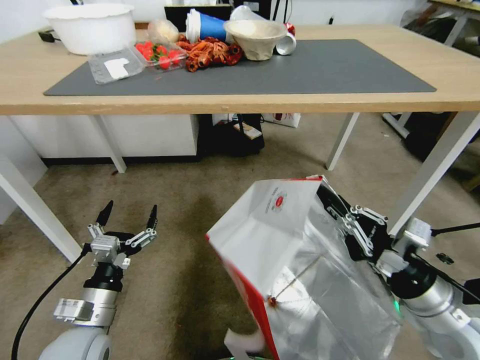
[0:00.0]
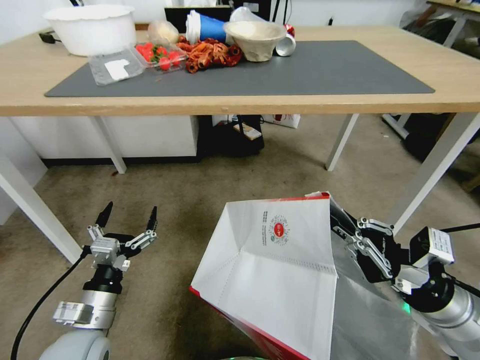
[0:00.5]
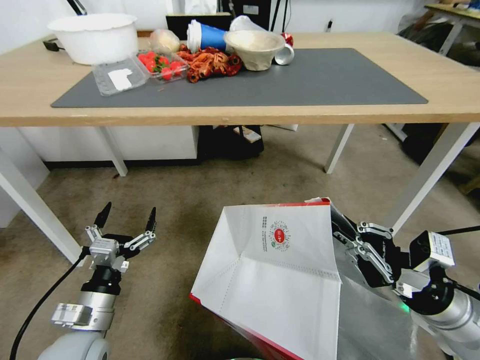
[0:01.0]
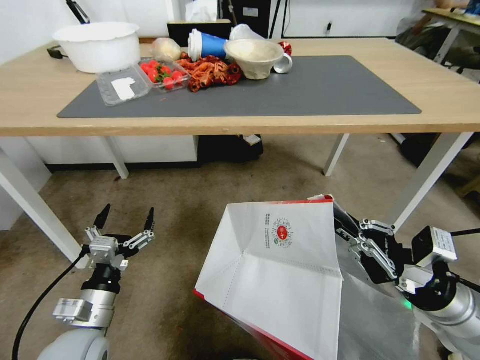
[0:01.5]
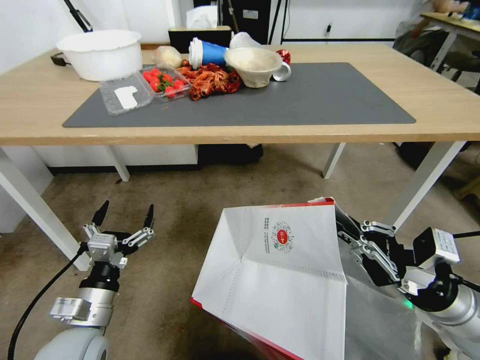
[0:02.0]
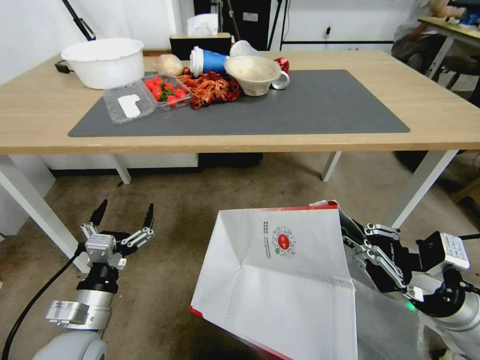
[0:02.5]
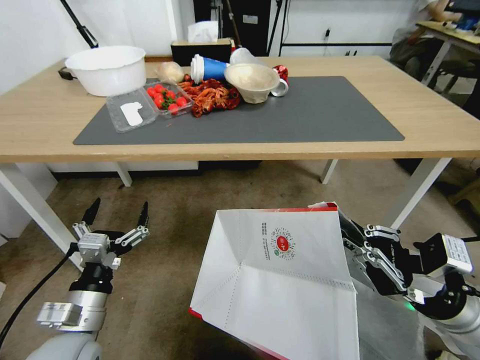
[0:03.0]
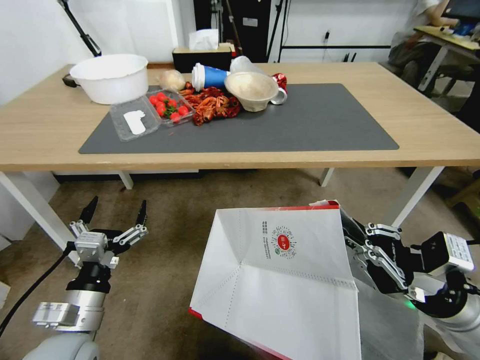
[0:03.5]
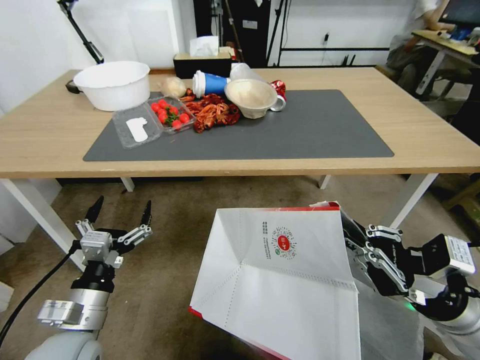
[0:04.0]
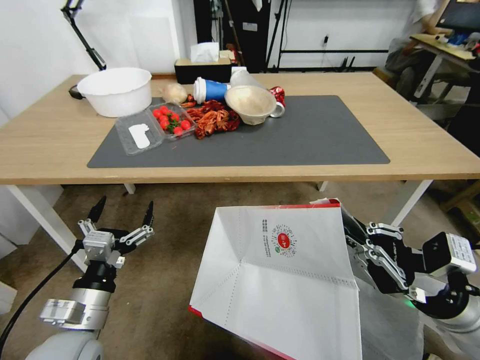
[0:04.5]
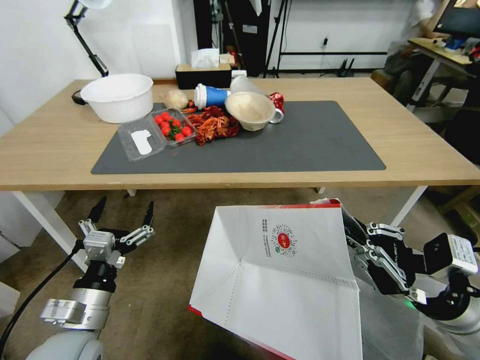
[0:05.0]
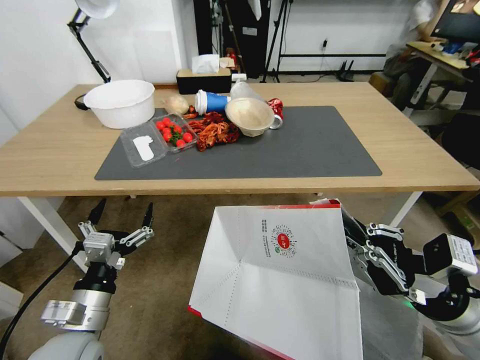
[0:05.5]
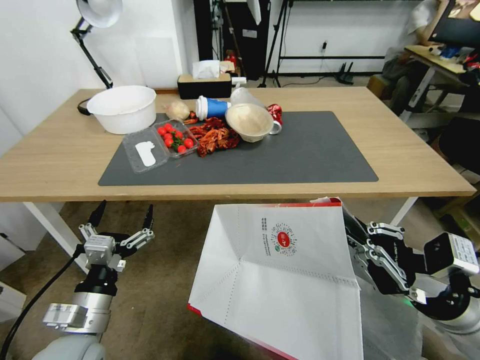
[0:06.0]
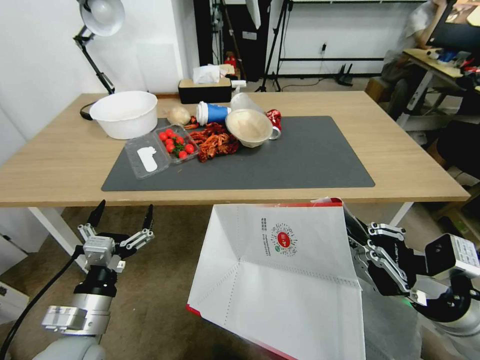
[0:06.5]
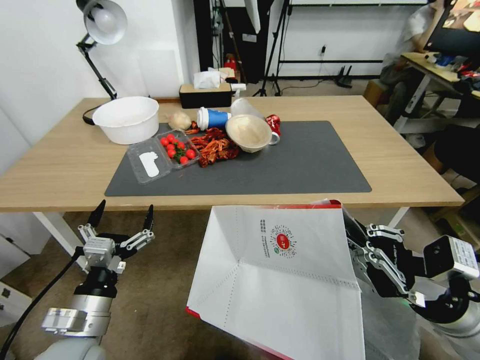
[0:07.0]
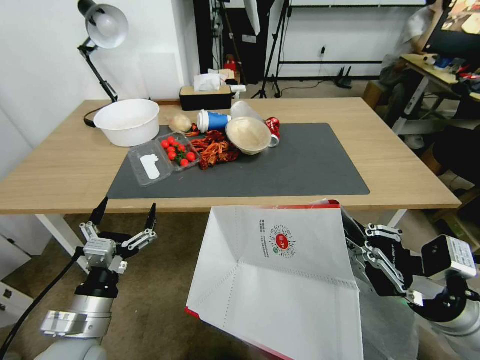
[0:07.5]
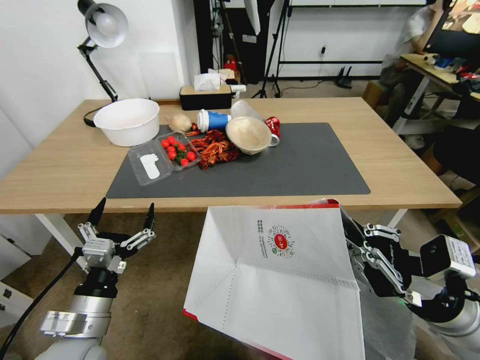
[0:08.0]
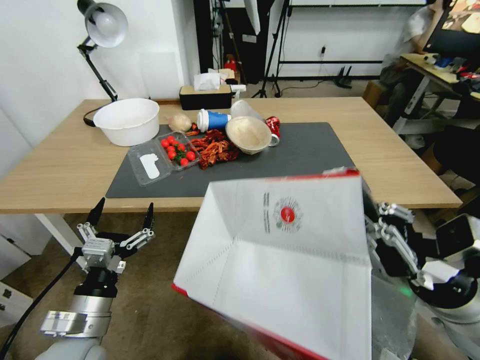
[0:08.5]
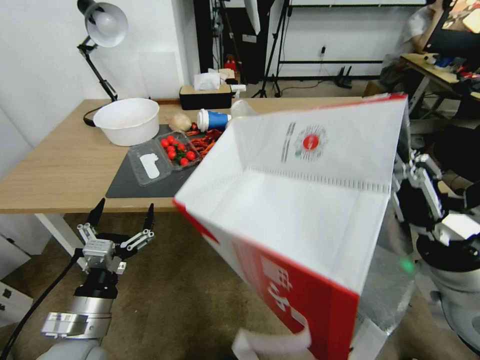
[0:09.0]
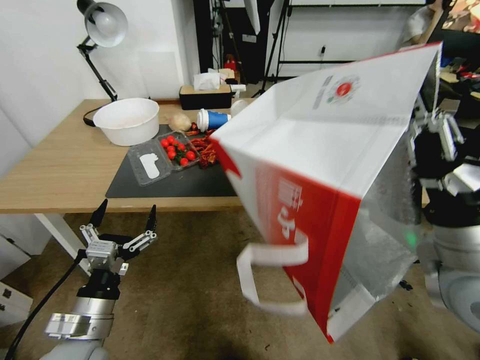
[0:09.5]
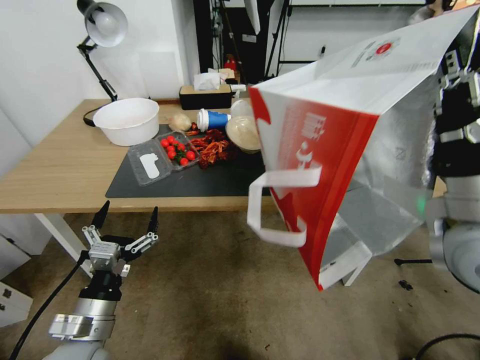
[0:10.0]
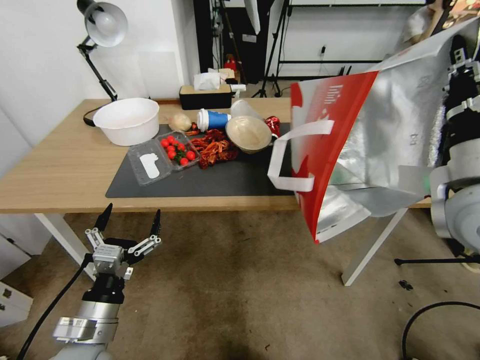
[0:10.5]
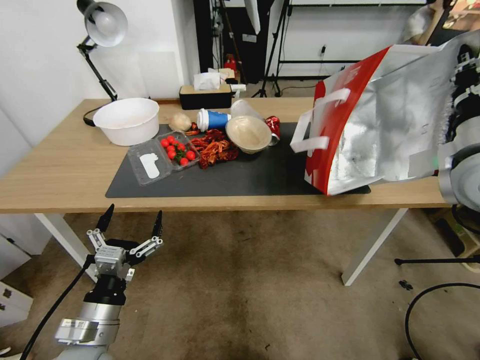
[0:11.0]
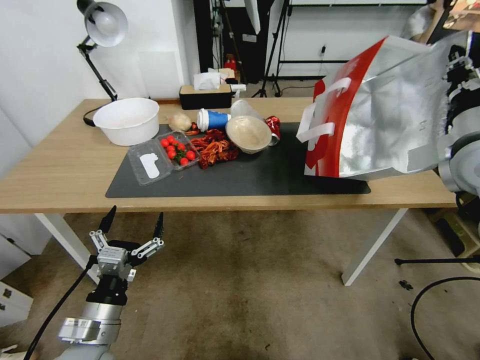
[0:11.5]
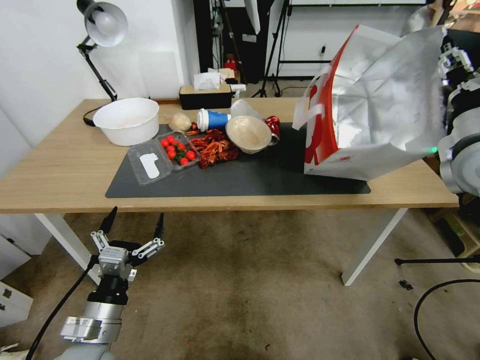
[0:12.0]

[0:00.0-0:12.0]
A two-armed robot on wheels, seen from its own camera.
Task of the whole recording: Pick up the food delivery bag from the floor and place it on the table.
0:08.0 to 0:10.0: The right gripper moves upward and forward, about 15 cm.
0:10.0 to 0:12.0: The right gripper shifts approximately 15 cm forward and to the right, and opens its fingers.

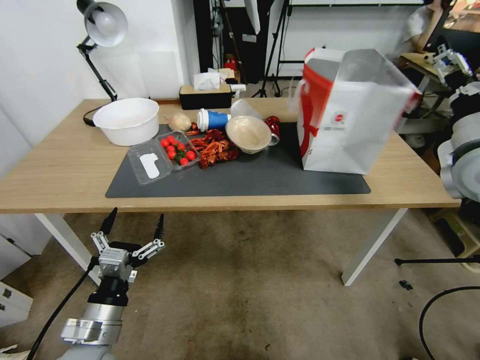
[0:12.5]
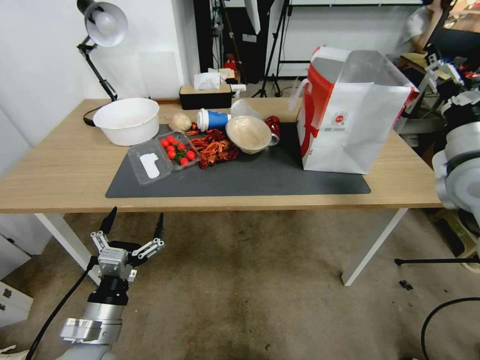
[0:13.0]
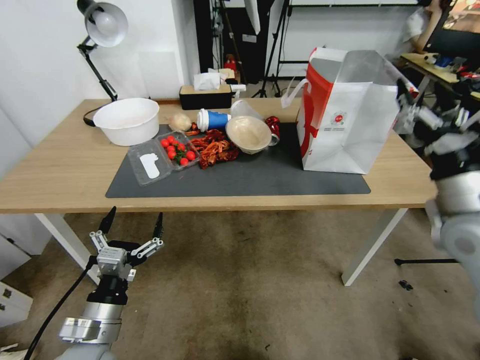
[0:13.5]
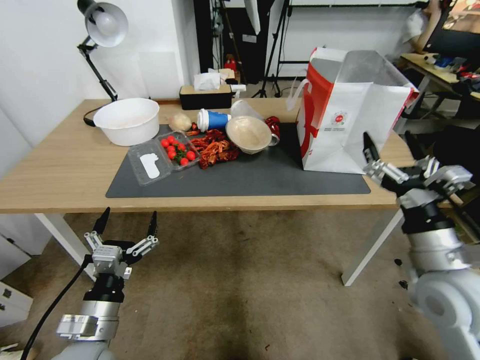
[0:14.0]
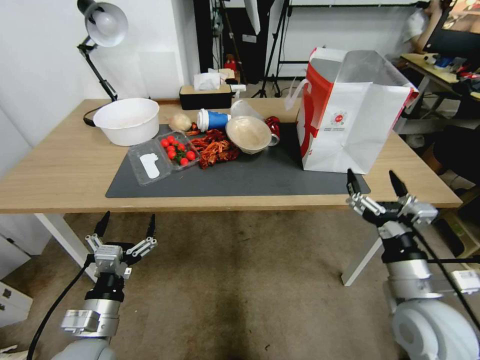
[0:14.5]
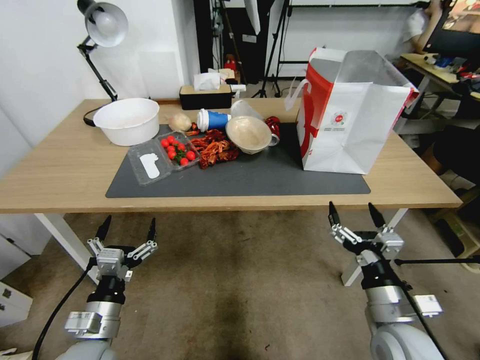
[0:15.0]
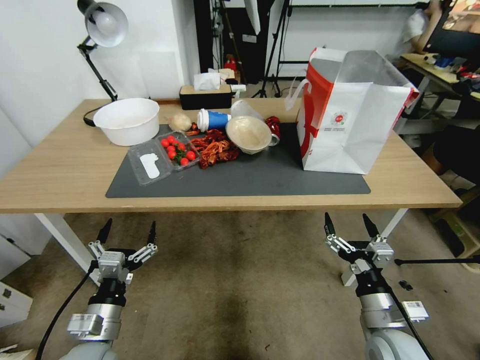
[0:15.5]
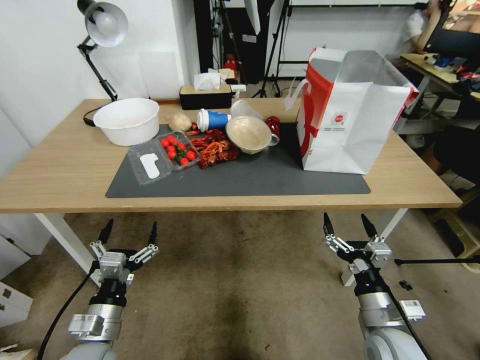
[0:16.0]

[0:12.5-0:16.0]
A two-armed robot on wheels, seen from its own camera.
Task of the whole recording: Pick up the food delivery bag from the floor and place it on the table.
0:12.5 to 0:14.5: The right gripper heads downward, backward and to the left, covering approximately 25 cm.
0:14.5 to 0:16.0: The right gripper moves downward, about 10 cm.

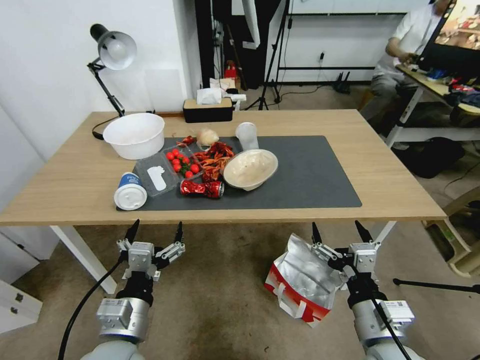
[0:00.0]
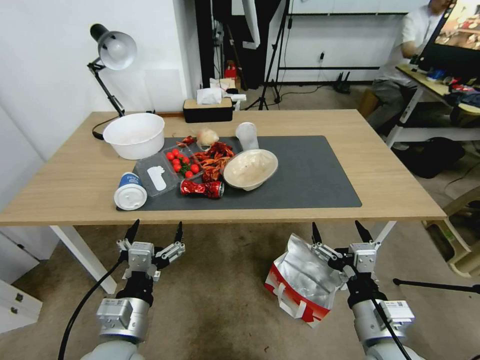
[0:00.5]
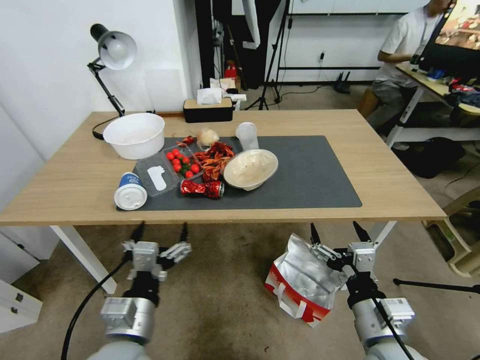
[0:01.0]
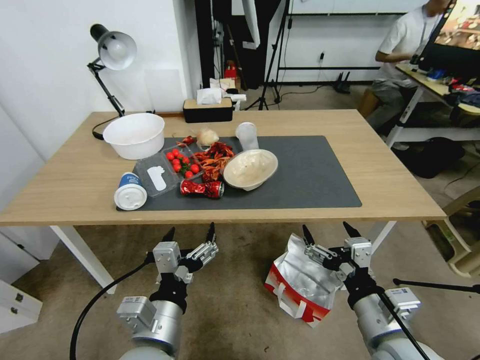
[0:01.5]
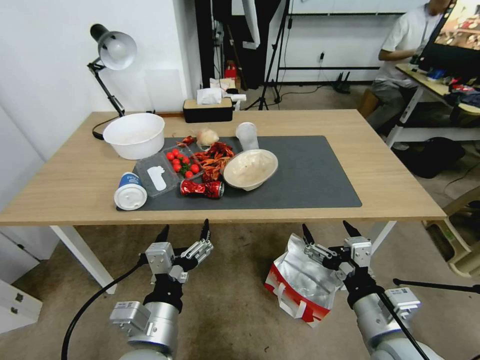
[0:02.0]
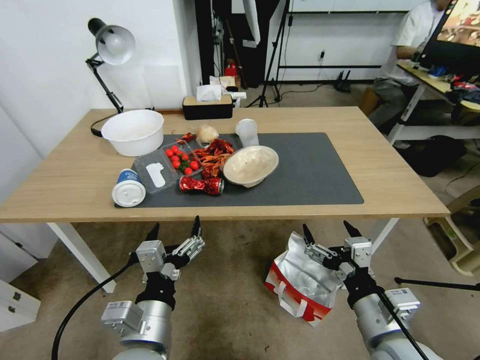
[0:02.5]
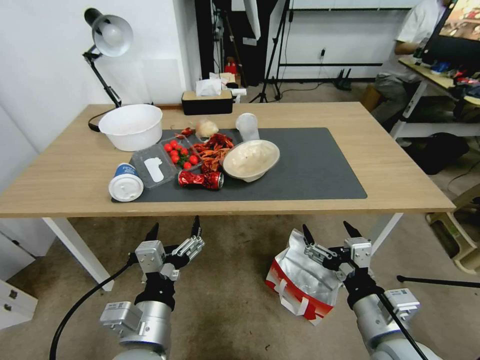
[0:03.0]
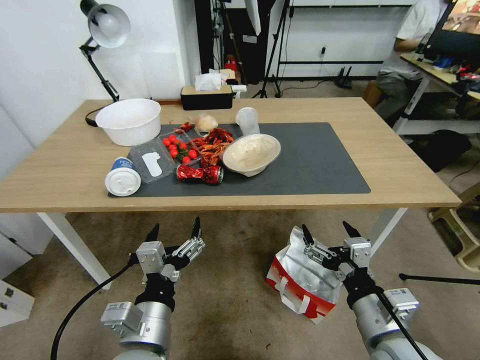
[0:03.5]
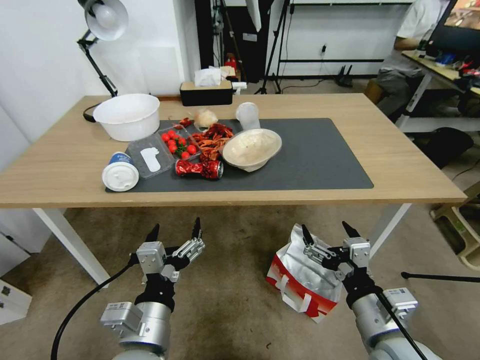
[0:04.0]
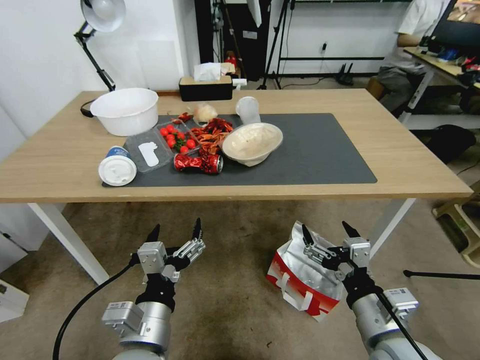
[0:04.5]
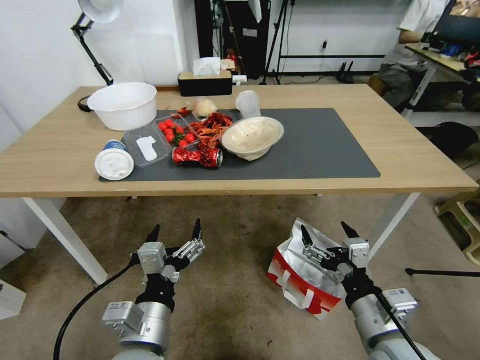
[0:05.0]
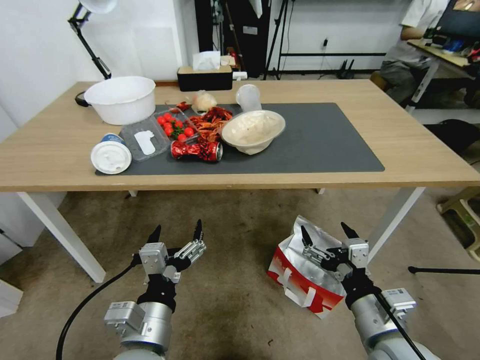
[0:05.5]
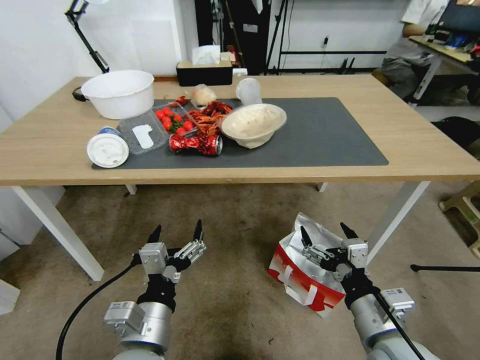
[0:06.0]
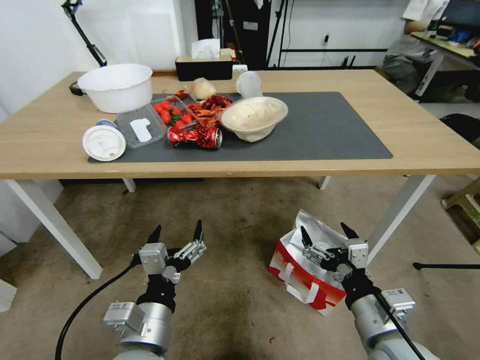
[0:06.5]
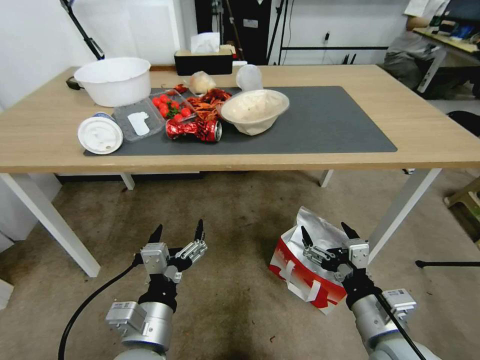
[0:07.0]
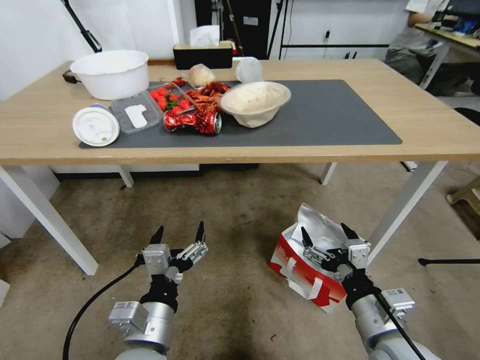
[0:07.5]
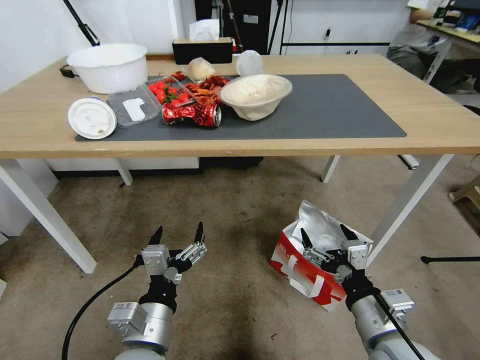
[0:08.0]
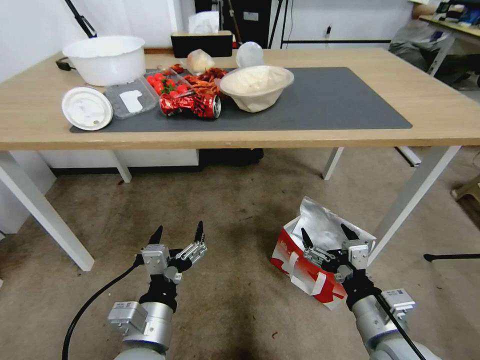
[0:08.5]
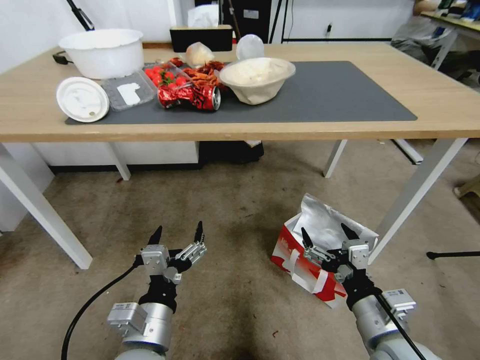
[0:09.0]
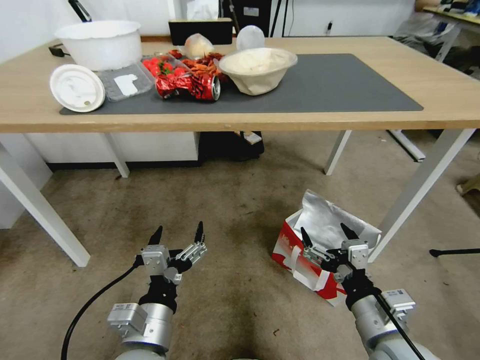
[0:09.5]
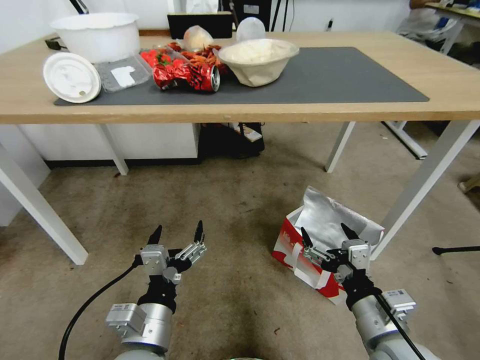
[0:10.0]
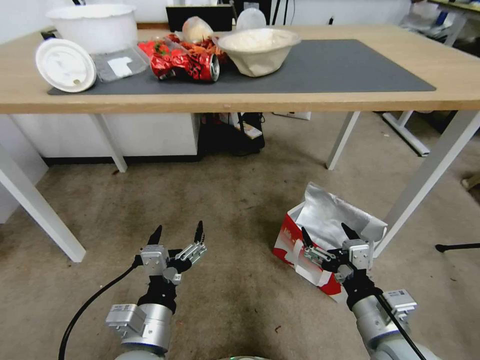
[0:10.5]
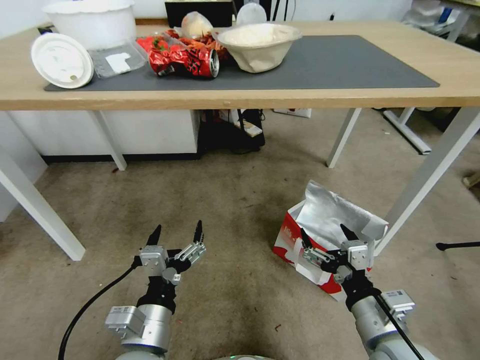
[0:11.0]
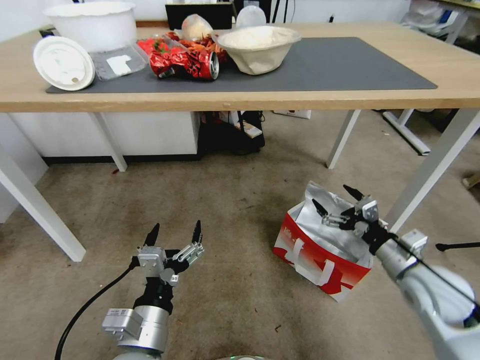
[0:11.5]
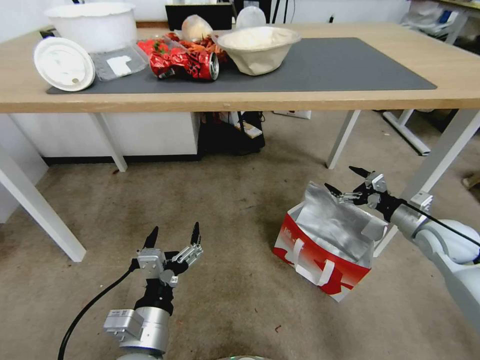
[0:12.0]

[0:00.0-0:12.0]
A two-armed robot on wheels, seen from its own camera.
Task of the whole recording: Pick up the food delivery bag from the floor and place it on the table.
0:10.0 to 0:12.0: The right gripper moves forward and to the right, approximately 30 cm.
